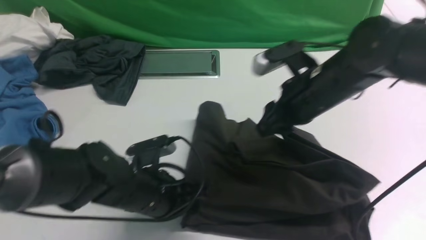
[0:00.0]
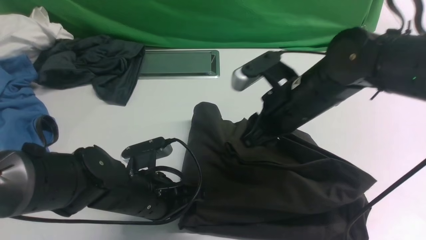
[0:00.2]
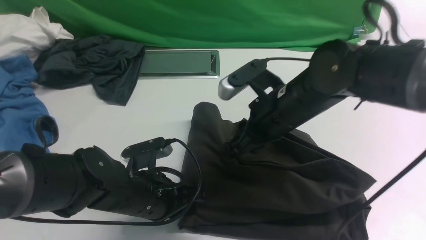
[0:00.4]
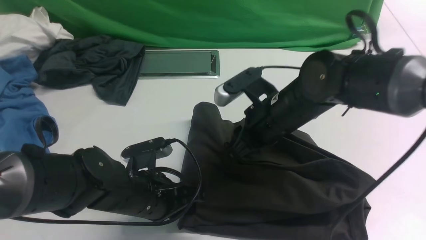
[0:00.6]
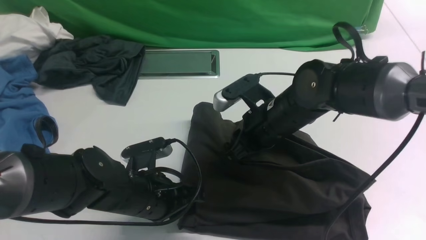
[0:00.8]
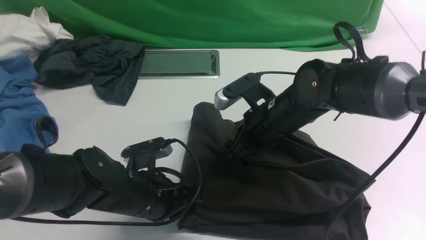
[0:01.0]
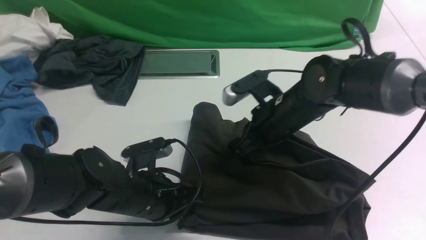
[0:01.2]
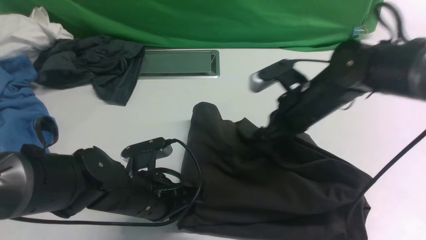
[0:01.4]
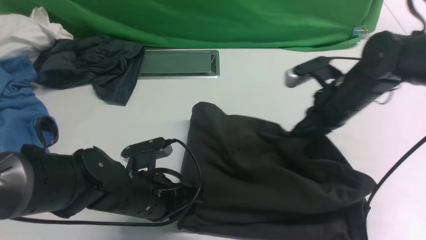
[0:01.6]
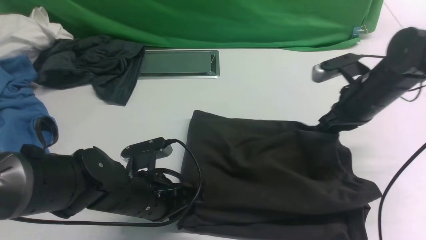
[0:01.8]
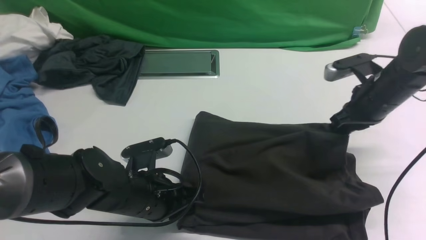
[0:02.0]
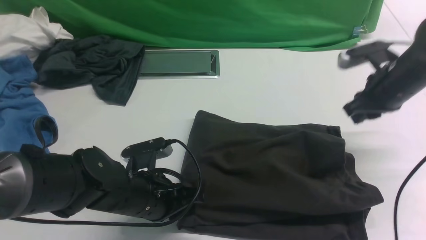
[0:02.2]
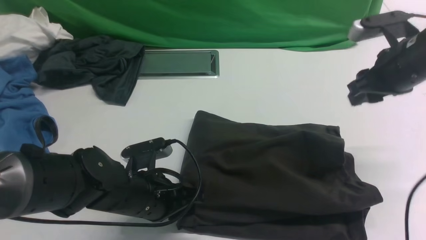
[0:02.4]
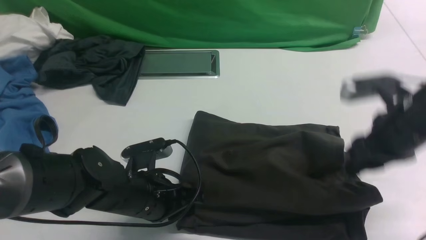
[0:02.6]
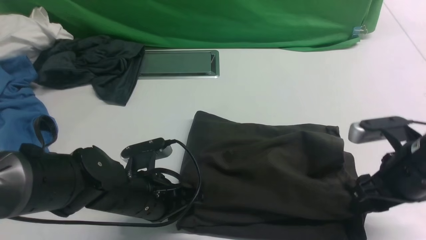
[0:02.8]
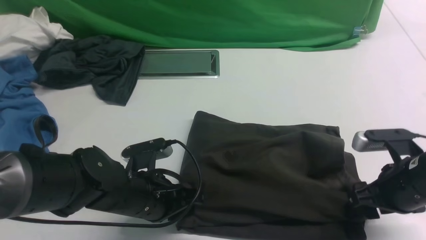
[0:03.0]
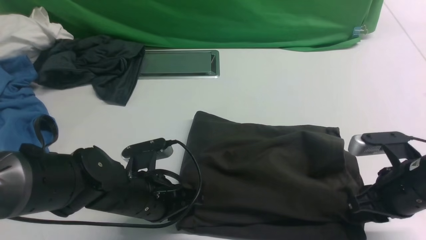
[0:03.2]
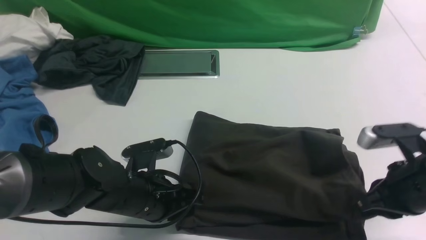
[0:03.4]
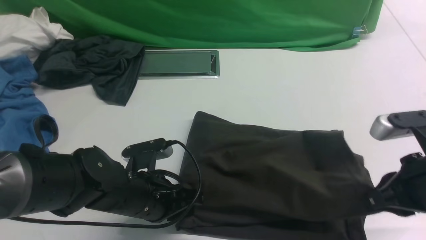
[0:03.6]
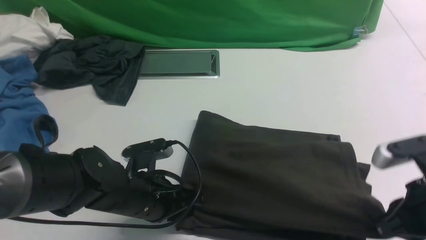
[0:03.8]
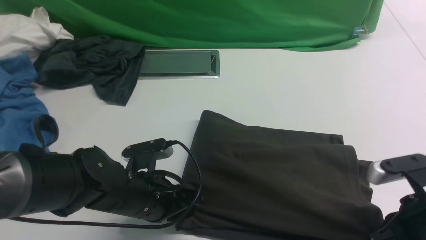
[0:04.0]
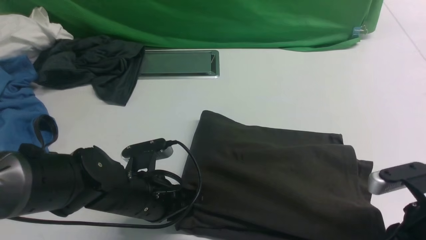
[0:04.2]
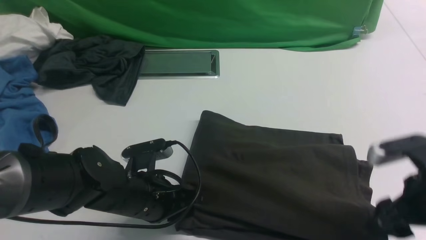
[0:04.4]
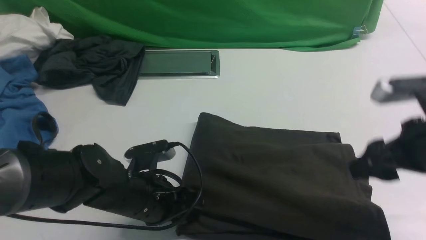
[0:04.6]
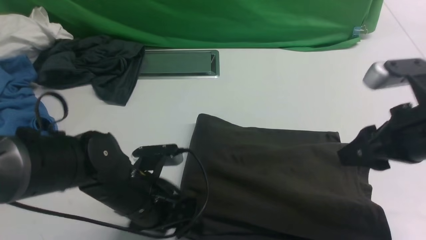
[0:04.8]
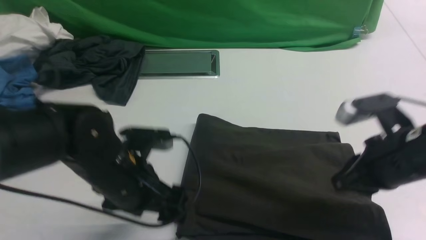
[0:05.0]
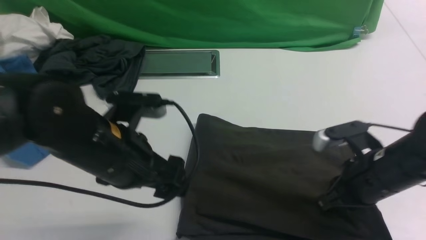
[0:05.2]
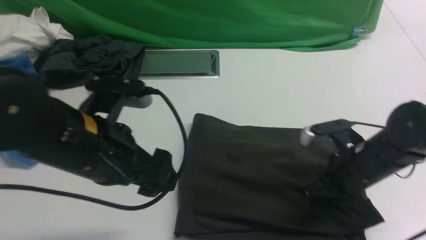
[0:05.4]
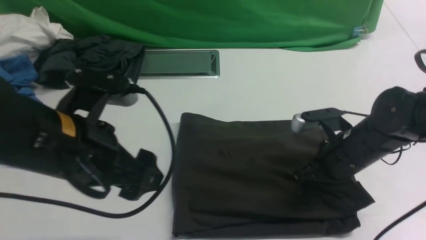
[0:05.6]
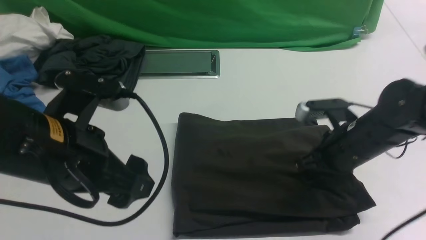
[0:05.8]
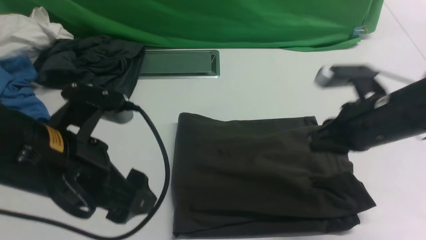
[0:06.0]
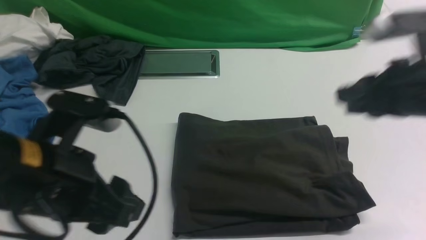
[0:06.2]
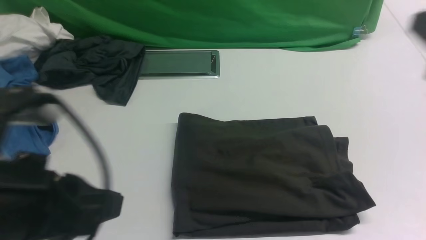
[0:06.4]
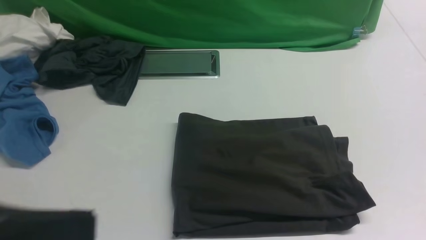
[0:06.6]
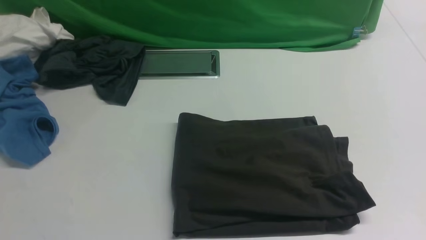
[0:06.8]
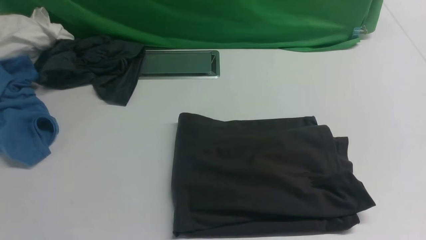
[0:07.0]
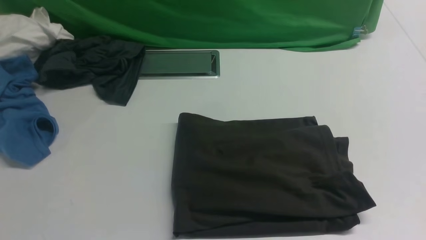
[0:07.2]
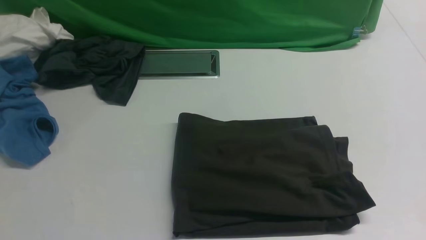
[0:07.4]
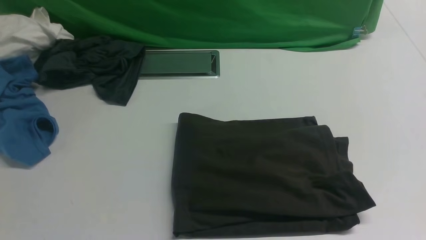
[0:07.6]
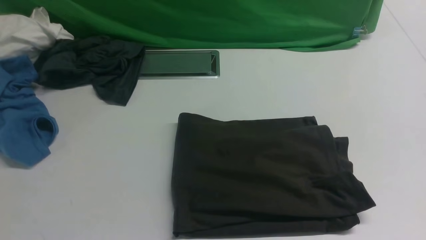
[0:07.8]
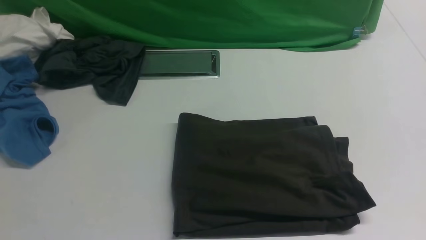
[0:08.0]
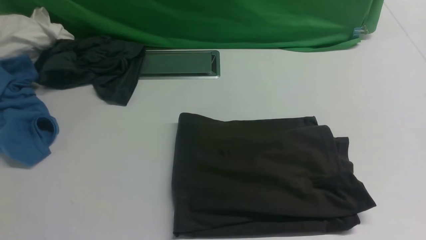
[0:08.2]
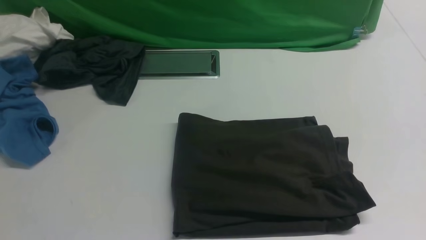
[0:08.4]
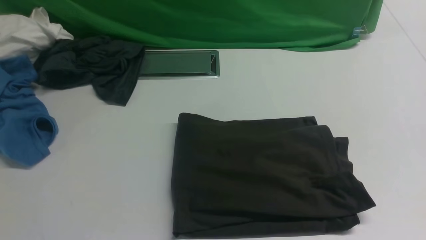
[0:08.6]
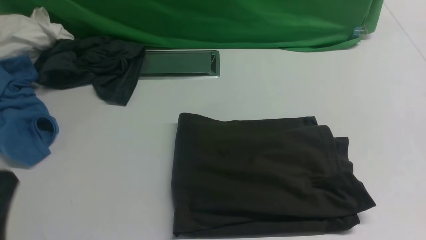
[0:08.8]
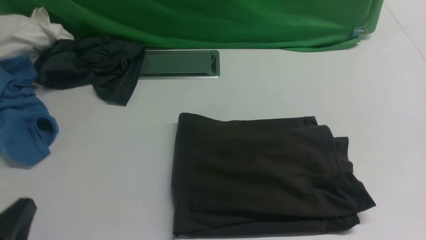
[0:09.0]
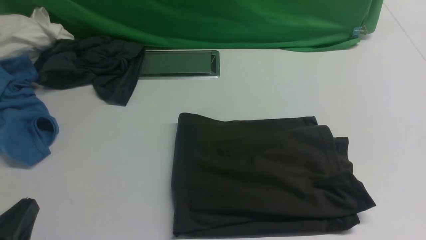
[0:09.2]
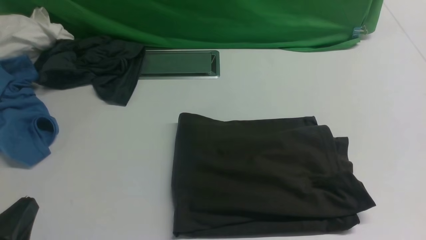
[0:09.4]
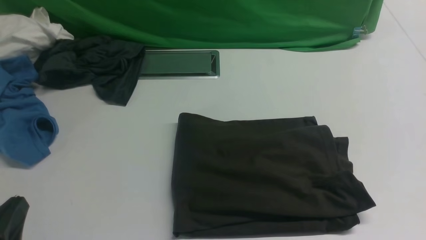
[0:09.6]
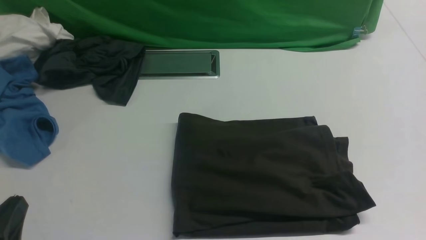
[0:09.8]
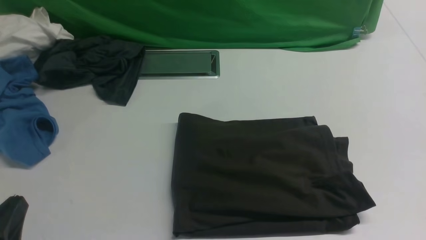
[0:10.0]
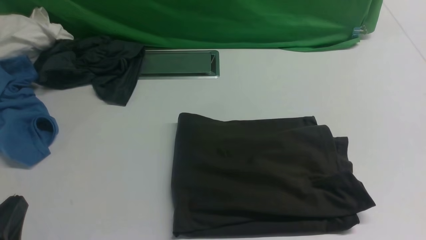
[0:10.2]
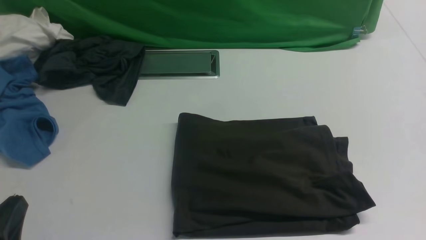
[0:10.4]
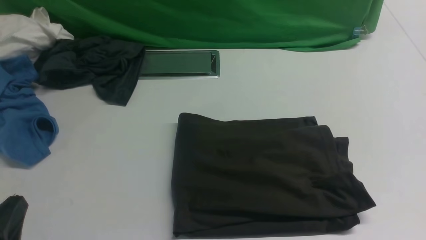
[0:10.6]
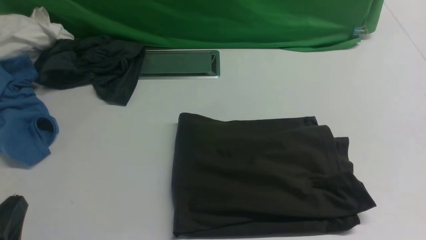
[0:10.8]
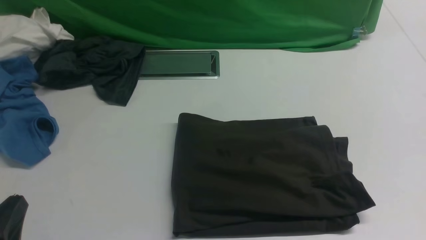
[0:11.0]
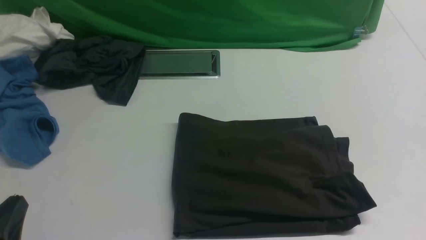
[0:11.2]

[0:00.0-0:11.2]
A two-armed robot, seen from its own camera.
0:00.0 to 0:01.6: The right gripper travels to the right by about 5 cm, and closes up.
0:01.6 to 0:03.2: The right gripper is displaced backward by some 15 cm, and opens its fingers.
0:03.2 to 0:04.8: The left gripper opens. The right gripper travels upward by about 5 cm, and closes and opens again.
0:04.8 to 0:06.4: The left gripper goes approximately 20 cm upward and backward, and closes, while the right gripper shifts some 10 cm upward and backward.
0:06.4 to 0:08.0: The right gripper is displaced backward by about 10 cm; the left gripper goes some 10 cm backward and to the left.
0:08.0 to 0:09.6: The left gripper travels downward by approximately 20 cm.

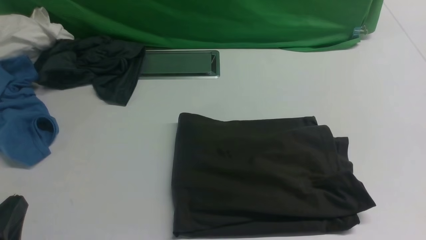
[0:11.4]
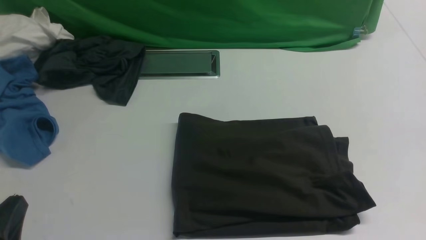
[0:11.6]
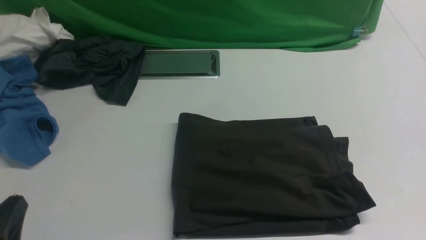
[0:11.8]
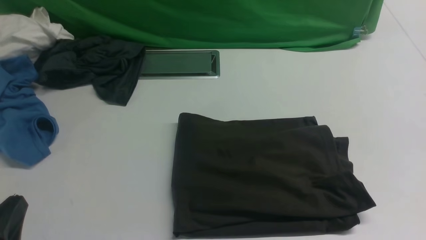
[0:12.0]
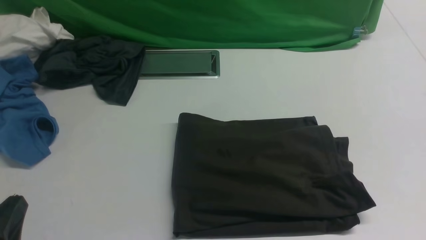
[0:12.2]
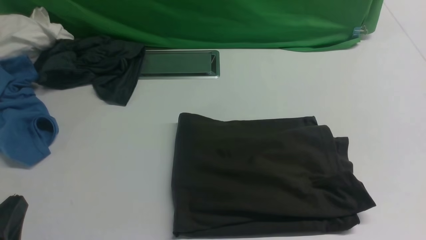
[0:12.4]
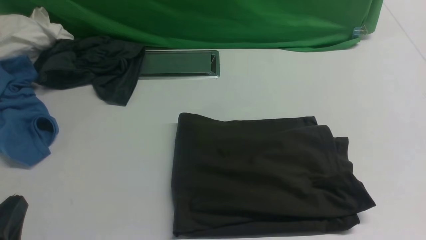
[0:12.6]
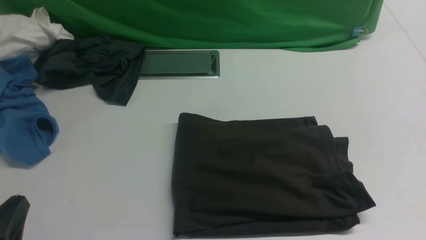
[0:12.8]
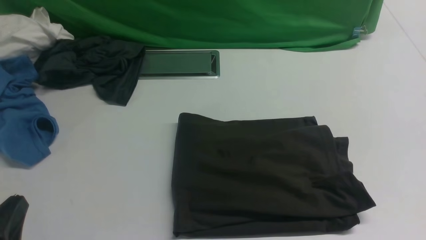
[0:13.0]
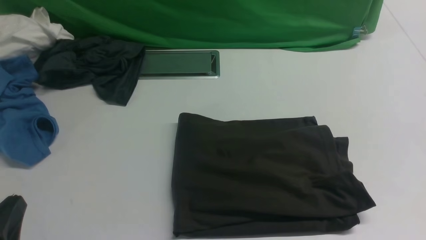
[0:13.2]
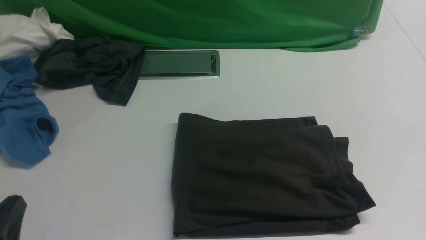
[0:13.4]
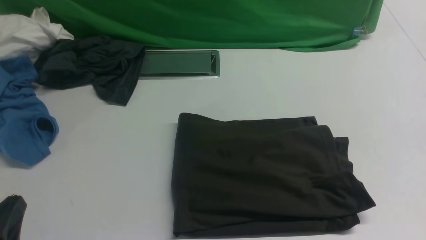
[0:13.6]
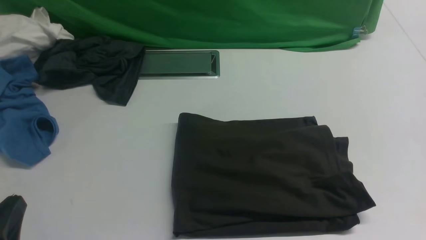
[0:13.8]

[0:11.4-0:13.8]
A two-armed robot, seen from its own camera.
0:11.4 to 0:13.8: The two grippers keep their place.

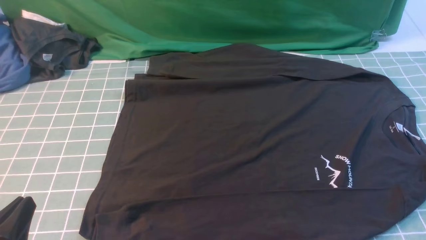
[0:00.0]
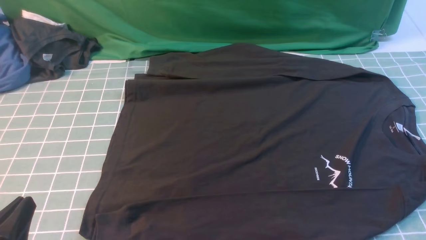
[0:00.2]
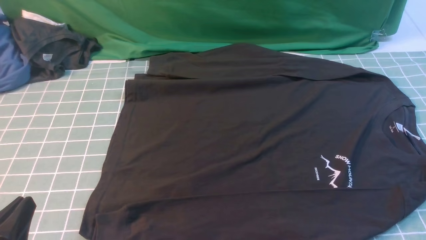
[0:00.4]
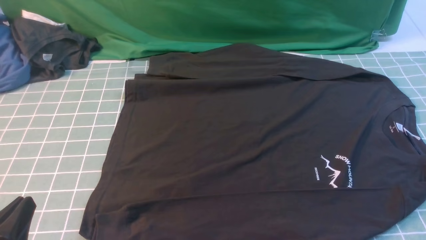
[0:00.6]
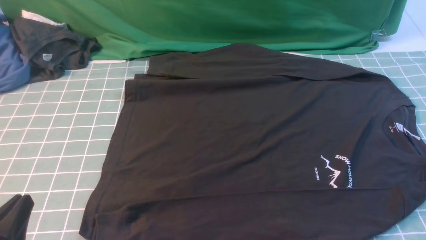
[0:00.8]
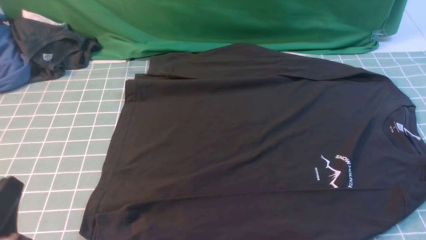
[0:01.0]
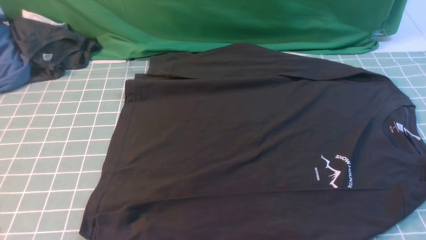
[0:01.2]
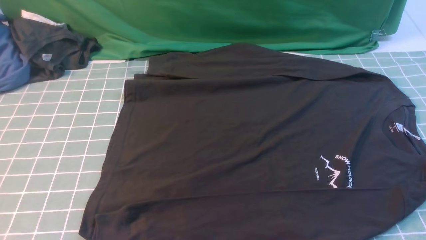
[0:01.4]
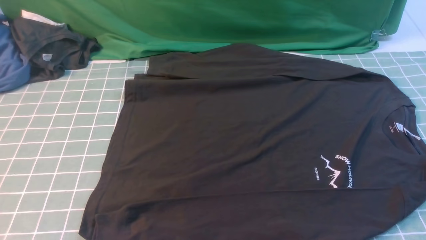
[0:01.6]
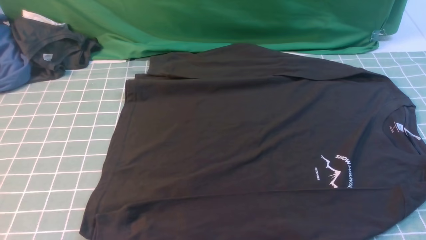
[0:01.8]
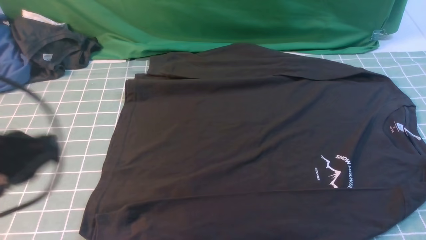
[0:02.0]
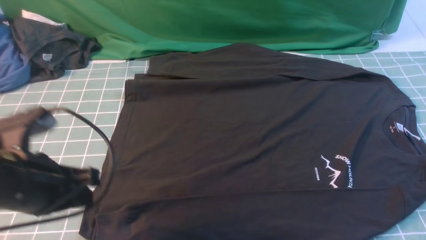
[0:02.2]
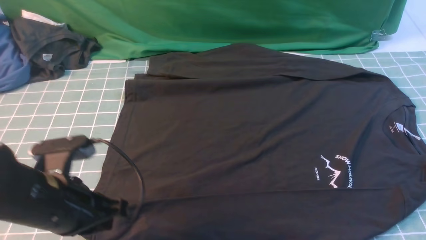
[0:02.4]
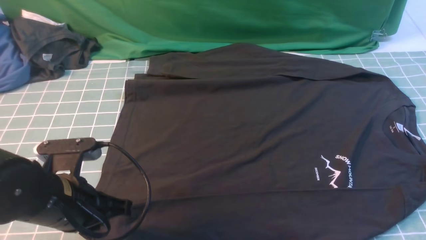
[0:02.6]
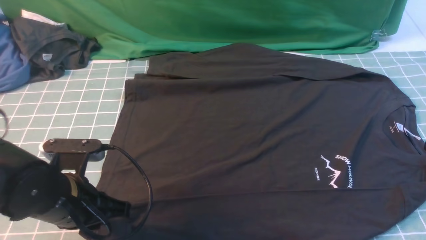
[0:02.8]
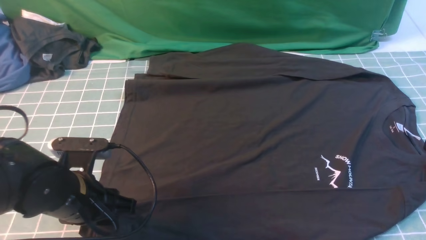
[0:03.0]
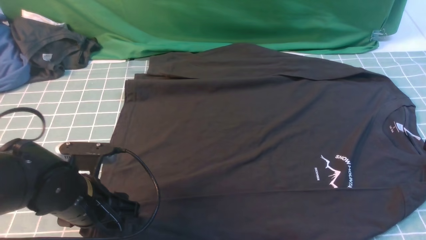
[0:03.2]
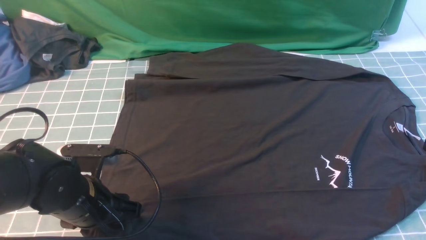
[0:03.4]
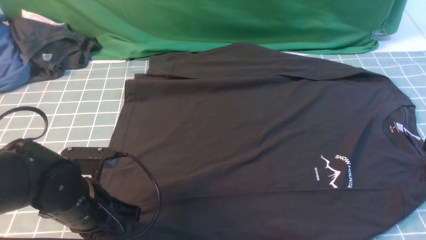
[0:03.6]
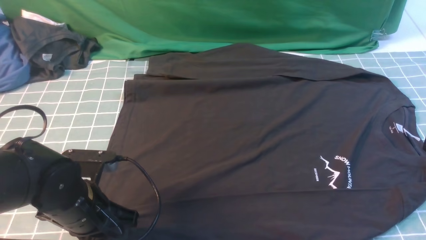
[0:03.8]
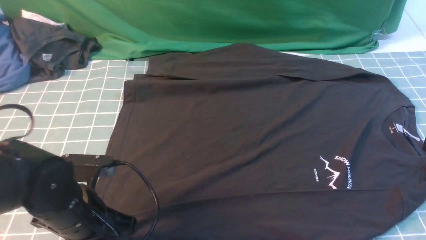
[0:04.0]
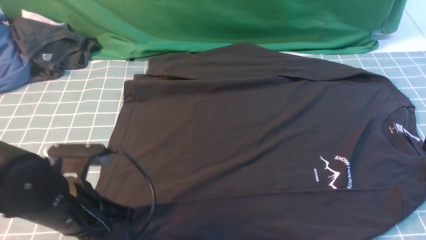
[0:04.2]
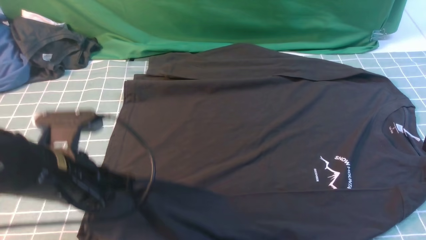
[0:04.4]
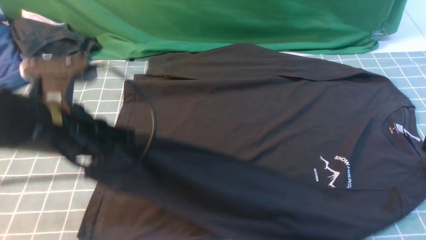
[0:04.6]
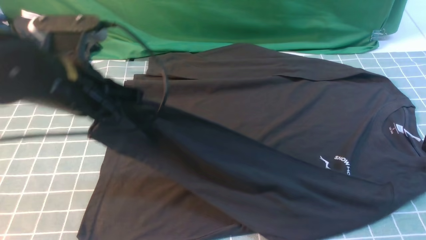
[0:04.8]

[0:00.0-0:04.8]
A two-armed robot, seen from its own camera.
Step, 0:00.0 to 0:04.0: use the left arm to clamp the cuff closest to it.
0:00.0 to 0:01.6: The left gripper heads upward, covering about 10 cm.
0:01.6 to 0:03.2: The right gripper shifts roughly 10 cm upward and forward, and closes its fingers. Meanwhile the left gripper heads forward, downward and to the right, covering about 20 cm, and opens.
0:03.2 to 0:04.8: The left gripper is displaced upward and forward by some 15 cm, and closes up.
